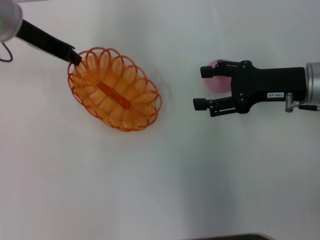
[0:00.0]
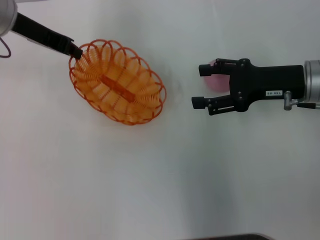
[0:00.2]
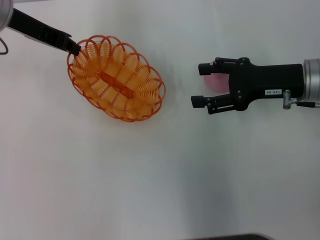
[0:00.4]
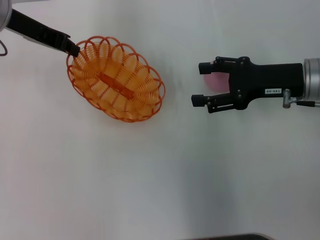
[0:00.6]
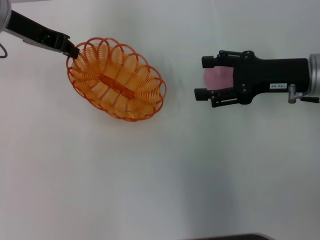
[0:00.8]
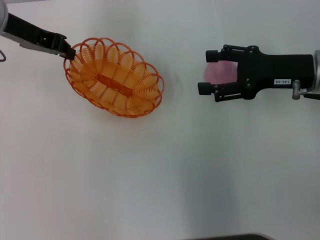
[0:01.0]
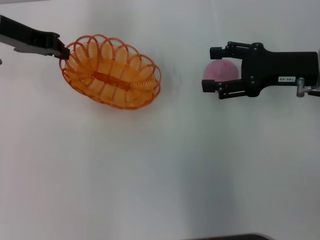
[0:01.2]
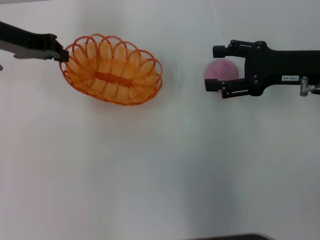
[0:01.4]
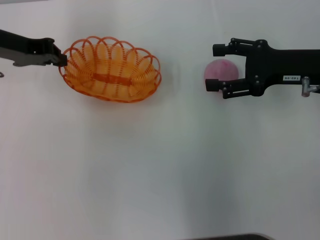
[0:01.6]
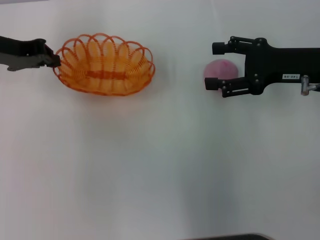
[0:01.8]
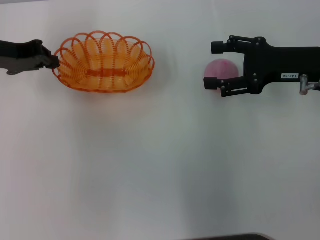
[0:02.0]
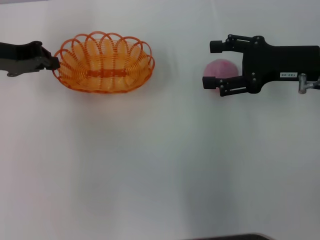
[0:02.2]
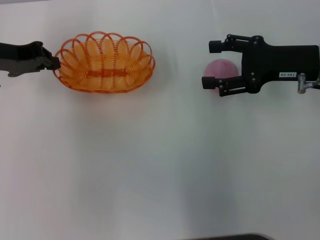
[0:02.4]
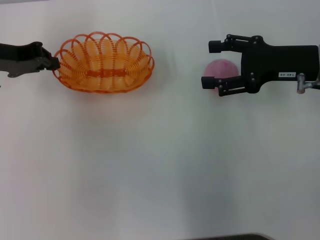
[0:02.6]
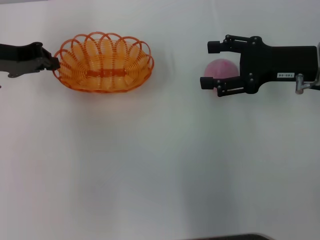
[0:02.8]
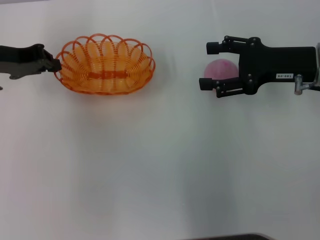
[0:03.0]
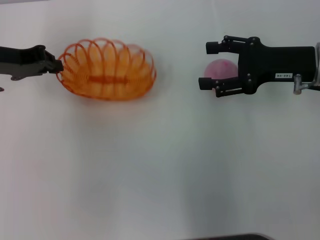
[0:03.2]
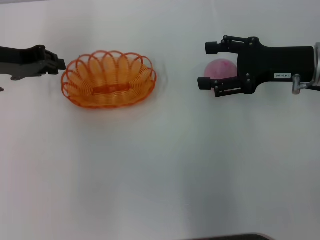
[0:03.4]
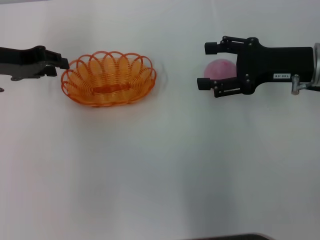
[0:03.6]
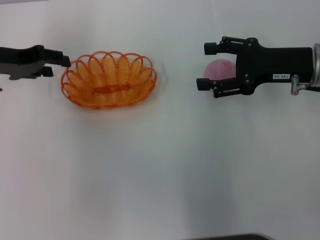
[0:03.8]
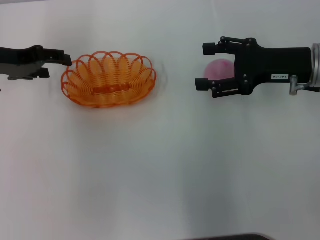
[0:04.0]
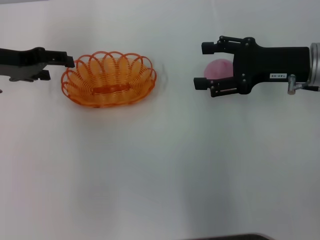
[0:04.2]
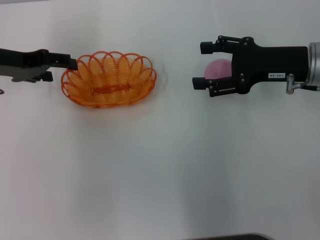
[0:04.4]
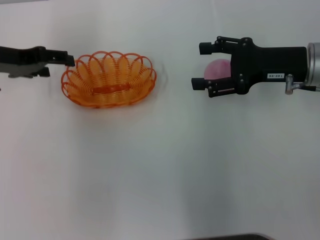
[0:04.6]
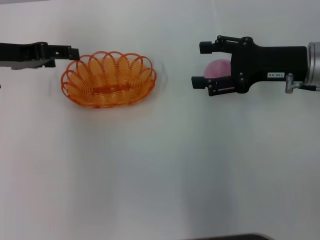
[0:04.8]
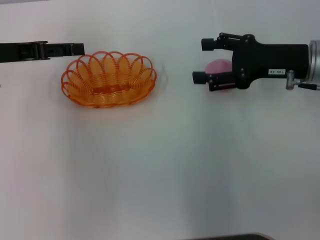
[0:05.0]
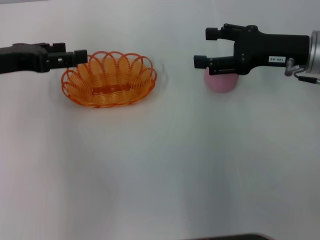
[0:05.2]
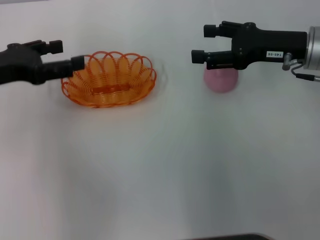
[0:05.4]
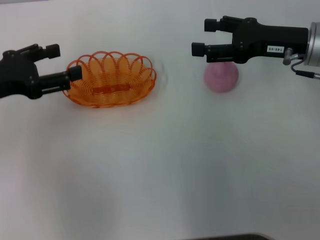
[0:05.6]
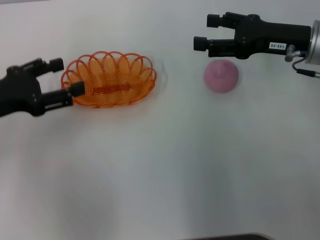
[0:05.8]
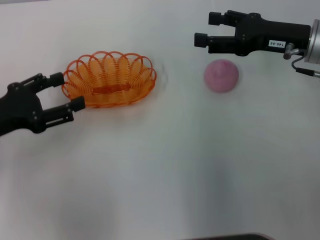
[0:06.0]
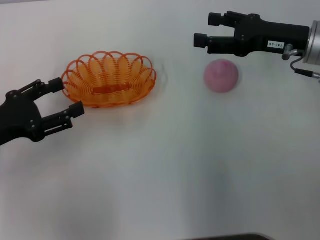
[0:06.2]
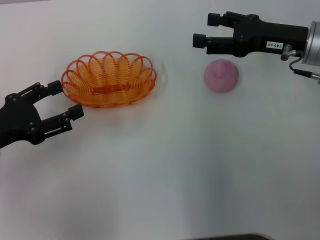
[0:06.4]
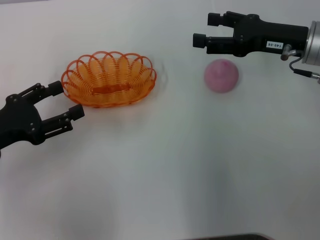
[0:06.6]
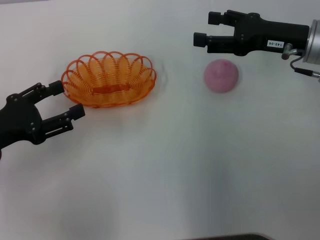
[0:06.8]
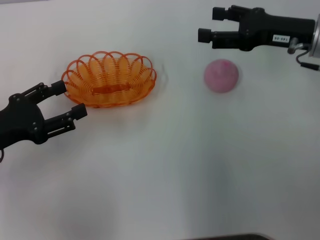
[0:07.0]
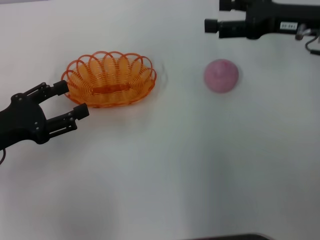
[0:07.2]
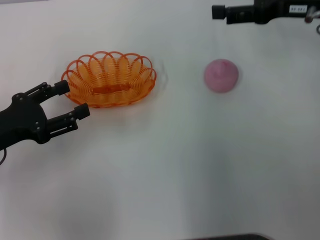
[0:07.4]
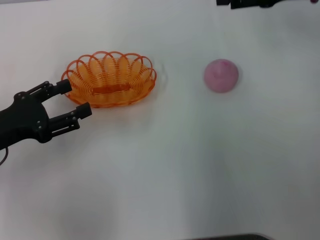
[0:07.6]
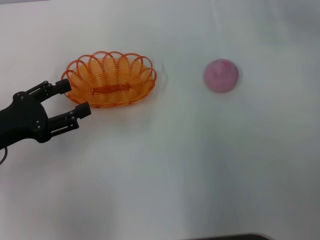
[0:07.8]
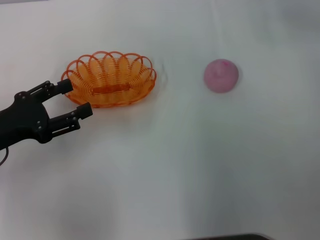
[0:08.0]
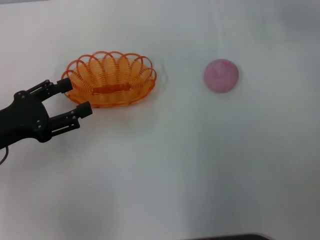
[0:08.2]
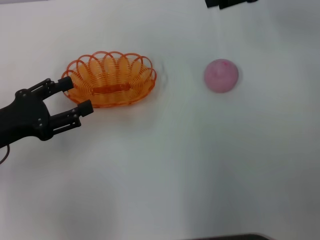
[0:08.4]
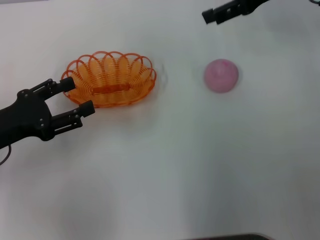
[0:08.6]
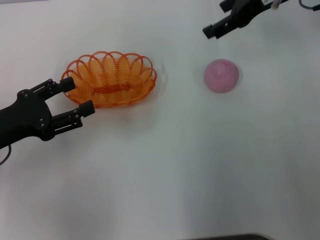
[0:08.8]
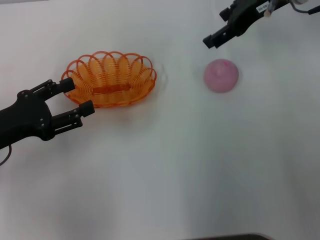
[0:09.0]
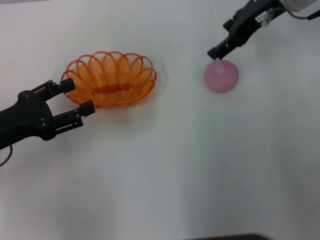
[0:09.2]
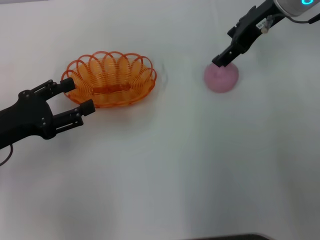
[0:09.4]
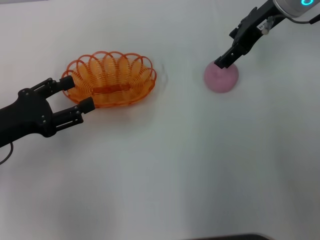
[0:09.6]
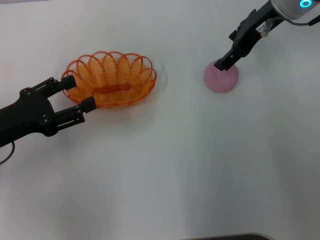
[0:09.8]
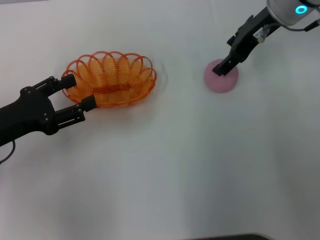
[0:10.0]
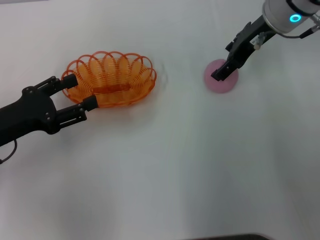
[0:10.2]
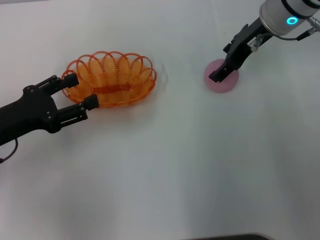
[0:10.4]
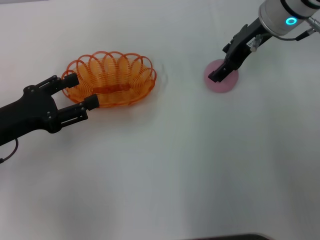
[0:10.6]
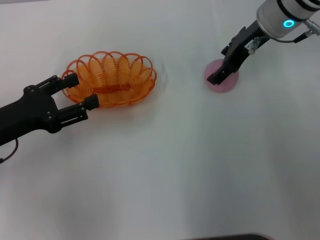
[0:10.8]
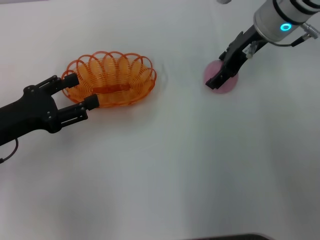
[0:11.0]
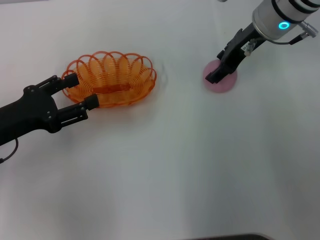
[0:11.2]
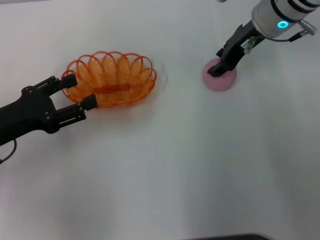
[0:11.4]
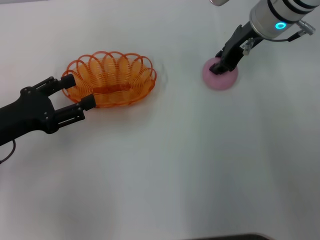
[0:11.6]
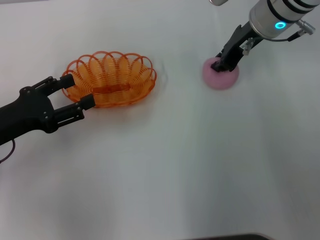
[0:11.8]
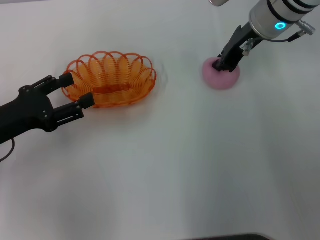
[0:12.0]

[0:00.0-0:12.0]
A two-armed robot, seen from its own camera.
Step, 0:00.2 to 0:03.6: Place the basket in the center of view with the left gripper.
0:00.0 to 0:01.6: The left gripper ends up approximately 5 cm from where it was.
0:01.6 to 0:03.0: The grippers make only small movements.
0:03.0 to 0:04.4: The left gripper opens its fingers.
0:04.4 to 0:06.0: The left gripper is displaced backward by about 10 cm.
0:06.0 to 0:07.6: The right gripper moves upward, some 10 cm.
0:07.6 to 0:09.0: The right gripper goes roughly 5 cm to the left.
0:09.0 to 0:10.4: The grippers make only small movements.
0:10.4 to 0:12.0: The right gripper closes its fingers.

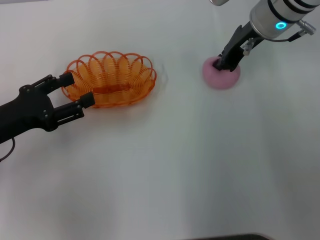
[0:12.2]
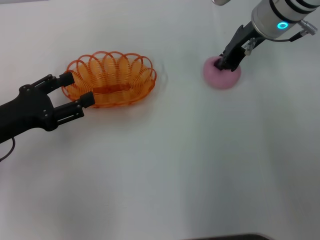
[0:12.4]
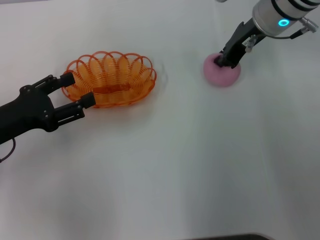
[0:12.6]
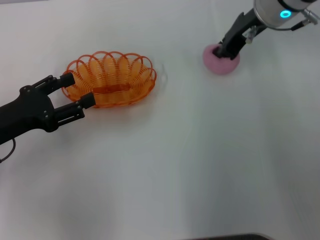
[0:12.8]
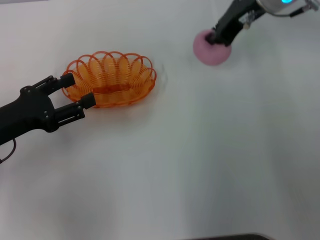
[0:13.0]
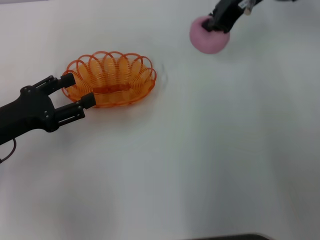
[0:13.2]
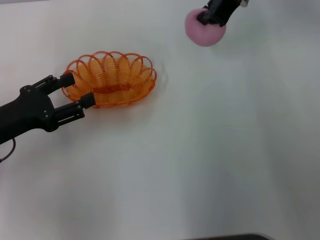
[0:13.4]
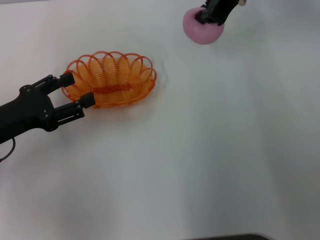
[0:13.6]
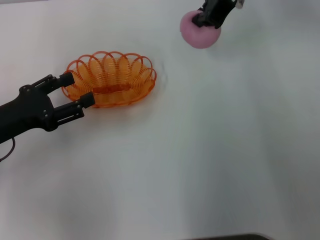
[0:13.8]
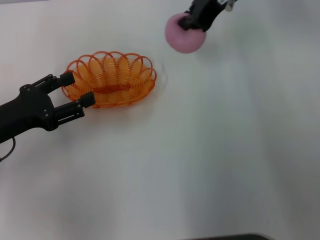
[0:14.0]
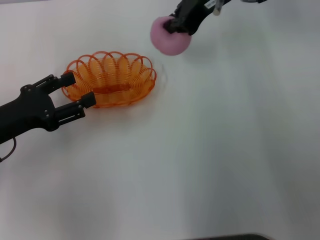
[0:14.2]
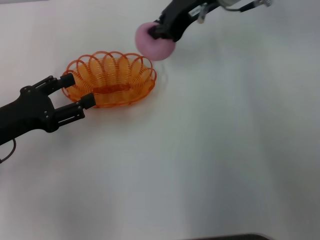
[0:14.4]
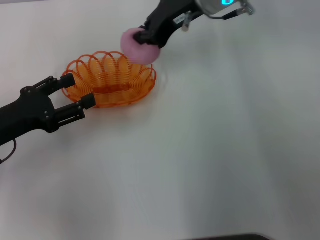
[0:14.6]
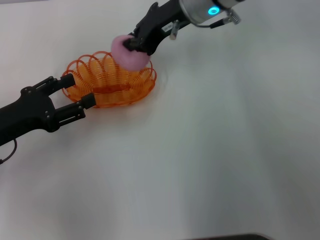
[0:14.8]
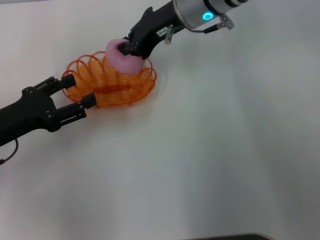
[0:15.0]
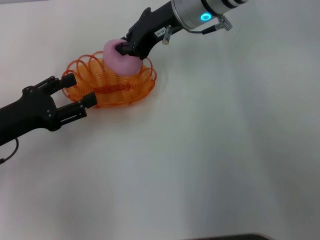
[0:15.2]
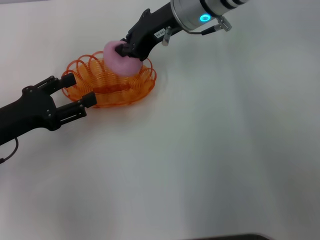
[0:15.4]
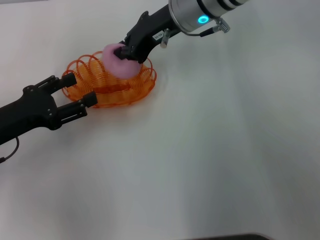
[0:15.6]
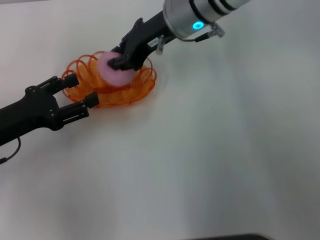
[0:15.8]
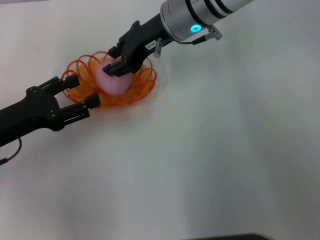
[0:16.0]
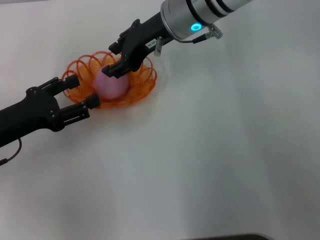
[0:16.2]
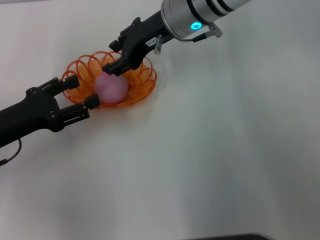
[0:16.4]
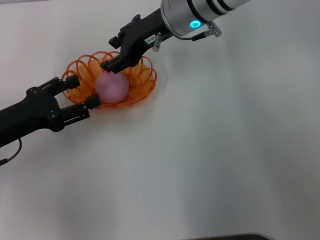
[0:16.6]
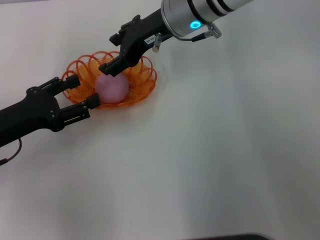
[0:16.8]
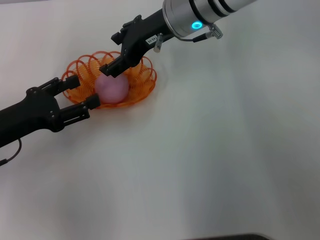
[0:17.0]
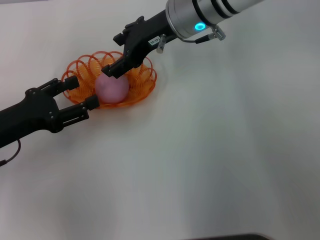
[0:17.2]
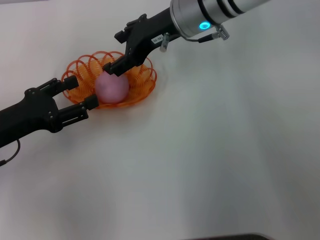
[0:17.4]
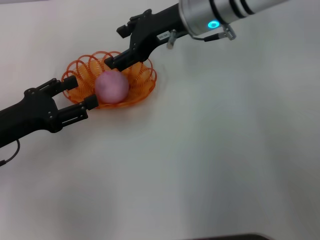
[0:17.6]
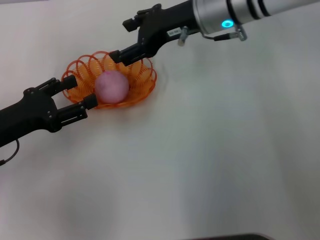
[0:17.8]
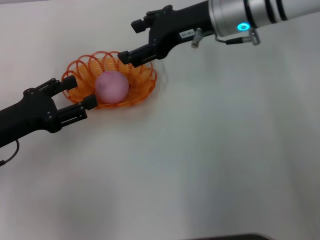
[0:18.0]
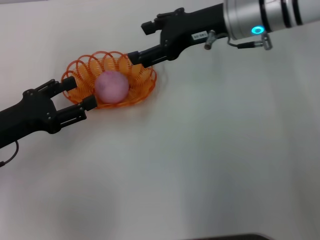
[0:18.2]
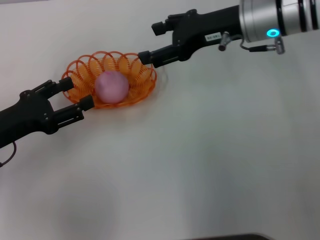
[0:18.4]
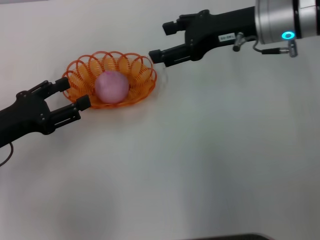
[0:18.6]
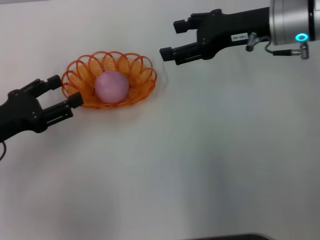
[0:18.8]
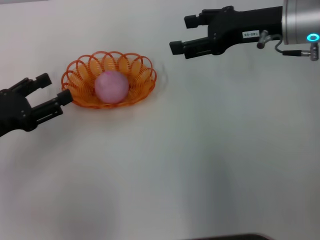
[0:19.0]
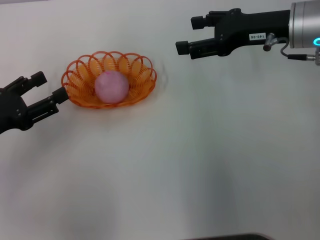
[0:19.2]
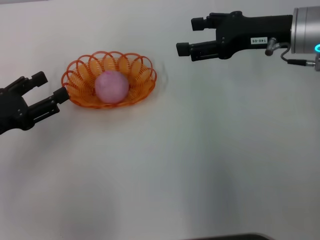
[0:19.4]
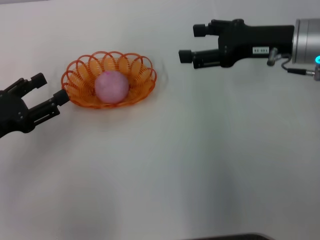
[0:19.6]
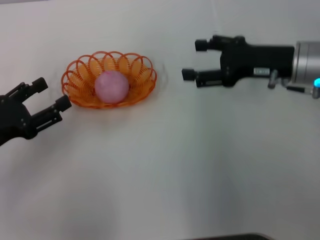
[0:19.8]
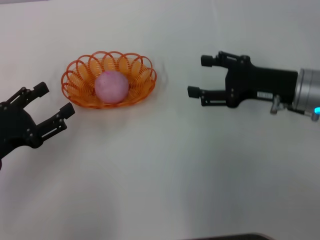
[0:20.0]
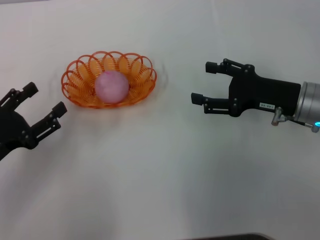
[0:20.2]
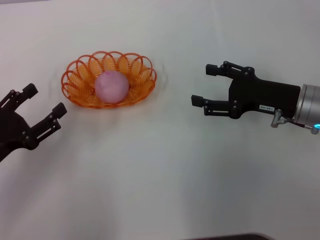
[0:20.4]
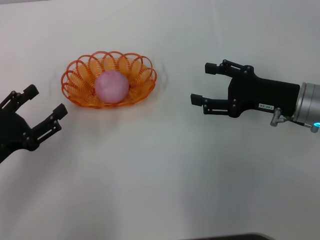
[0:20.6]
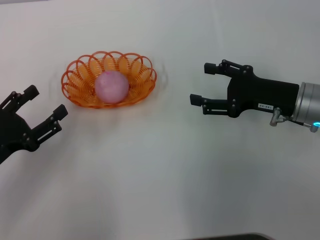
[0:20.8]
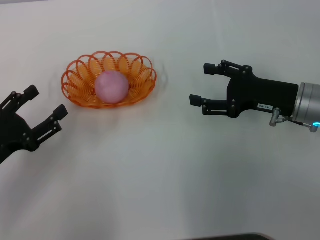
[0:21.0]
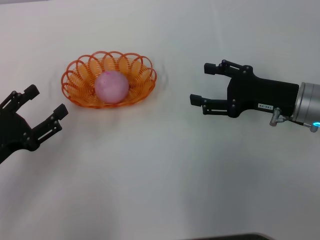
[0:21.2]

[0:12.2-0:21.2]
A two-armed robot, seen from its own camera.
Step, 0:14.0 to 0:17.8: Place the peach into the basket with the right gripper.
0:12.2 to 0:13.8: The right gripper shifts about 10 cm upward.
0:13.8 to 0:15.2: The right gripper is displaced to the left and downward by approximately 10 cm.
0:15.2 to 0:16.6: The right gripper opens its fingers.
0:16.6 to 0:18.2: The right gripper shifts approximately 10 cm to the right.
0:18.2 to 0:19.8: The right gripper shifts roughly 10 cm to the right, downward and backward.
0:19.8 to 0:21.2: The right gripper shifts by some 5 cm.

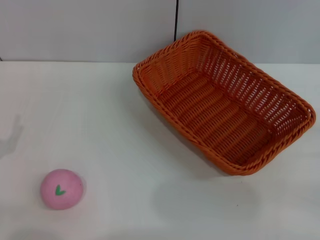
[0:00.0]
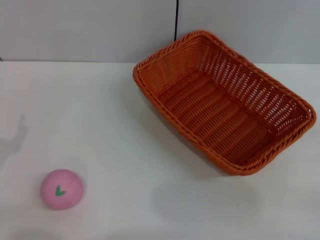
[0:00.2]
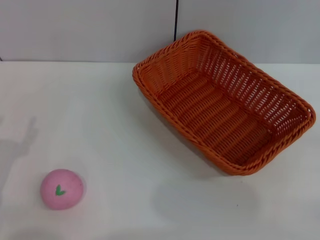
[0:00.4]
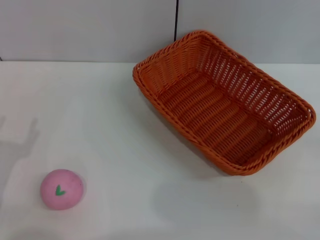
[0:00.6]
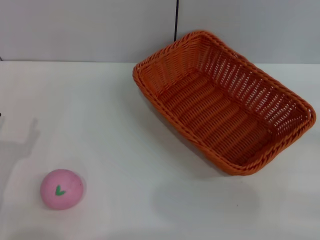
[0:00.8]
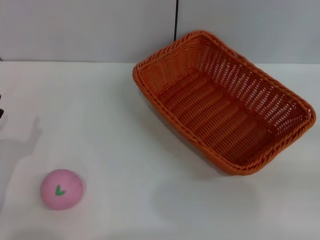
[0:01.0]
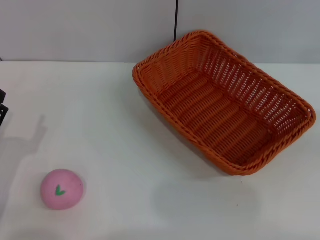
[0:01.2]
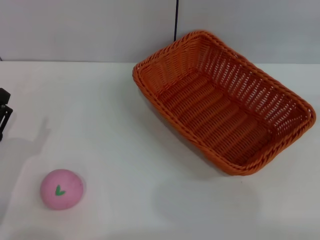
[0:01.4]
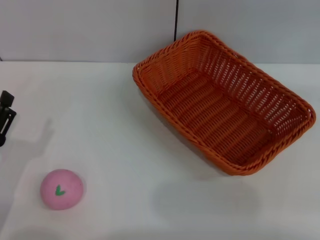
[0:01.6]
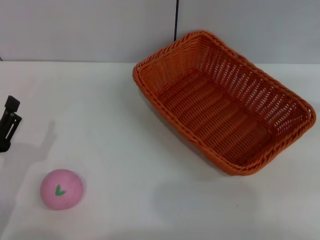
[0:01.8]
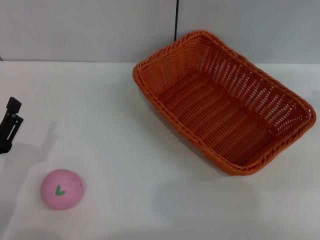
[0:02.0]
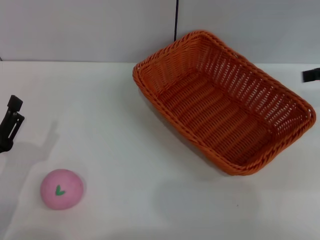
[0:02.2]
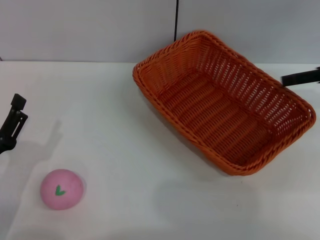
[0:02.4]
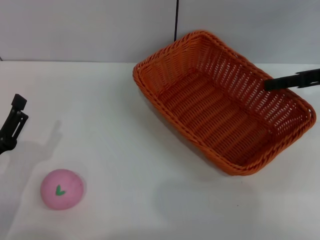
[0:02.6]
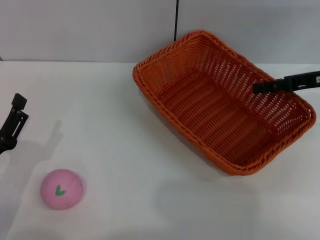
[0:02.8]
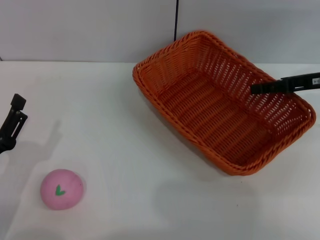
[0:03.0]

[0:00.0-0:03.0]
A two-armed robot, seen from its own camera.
0:01.6 to 0:03.0: The right gripper heads to the left, downward and forward, covering about 20 cm.
